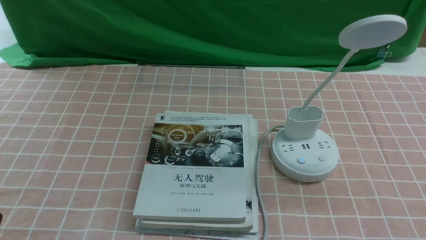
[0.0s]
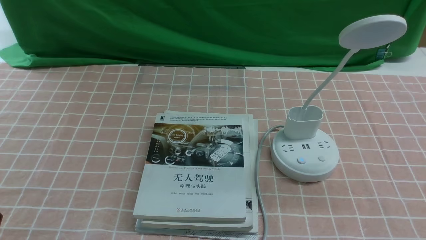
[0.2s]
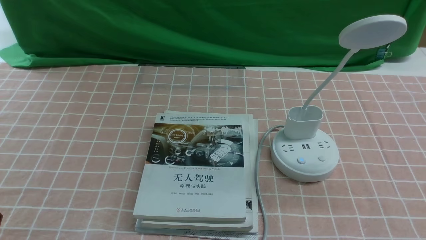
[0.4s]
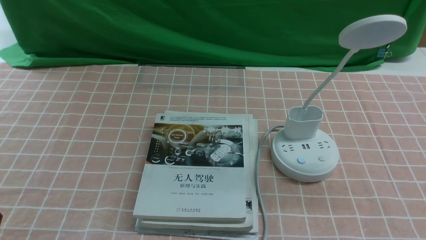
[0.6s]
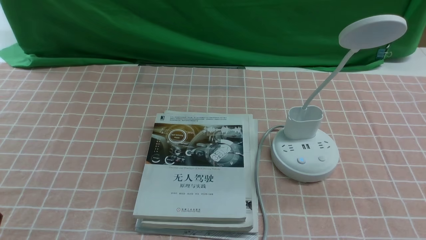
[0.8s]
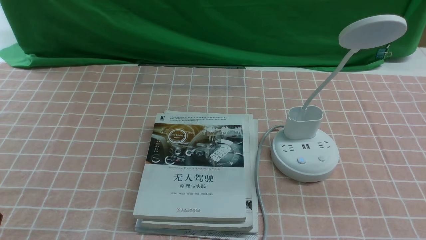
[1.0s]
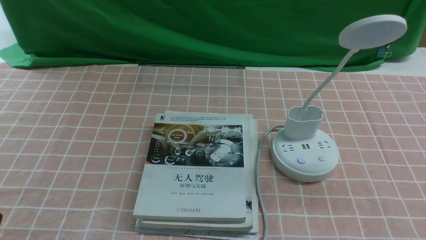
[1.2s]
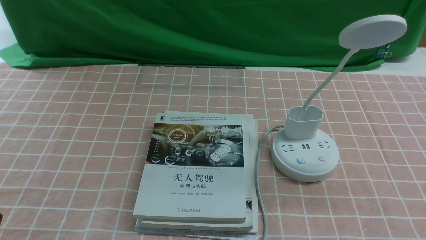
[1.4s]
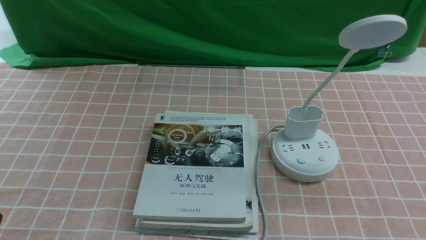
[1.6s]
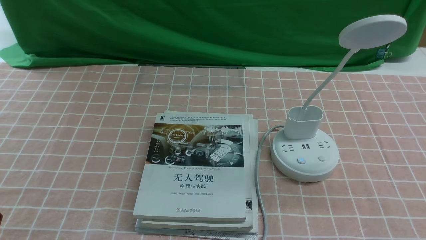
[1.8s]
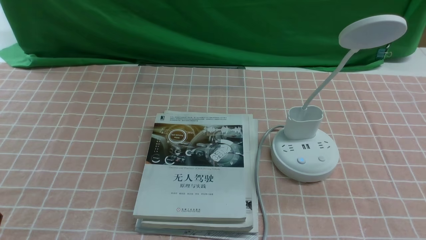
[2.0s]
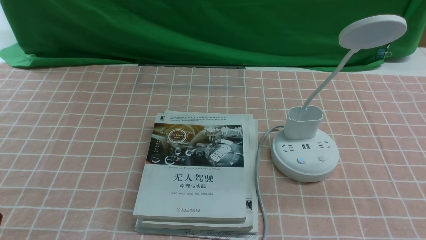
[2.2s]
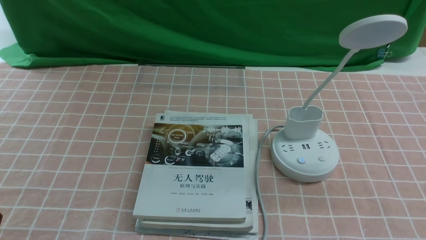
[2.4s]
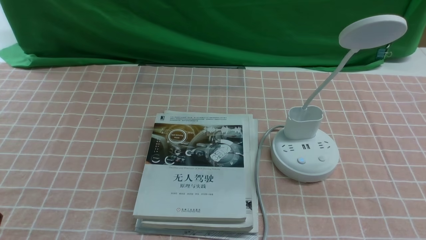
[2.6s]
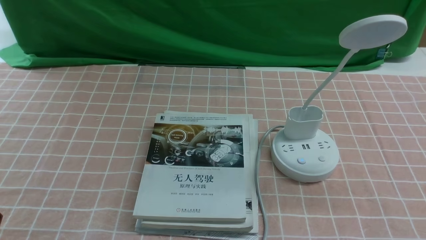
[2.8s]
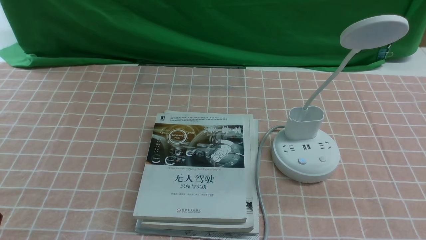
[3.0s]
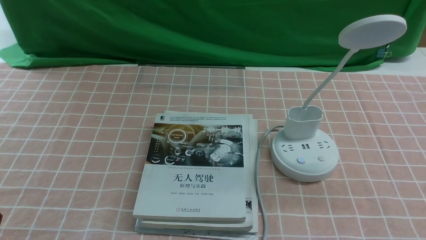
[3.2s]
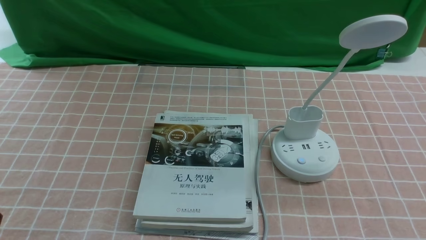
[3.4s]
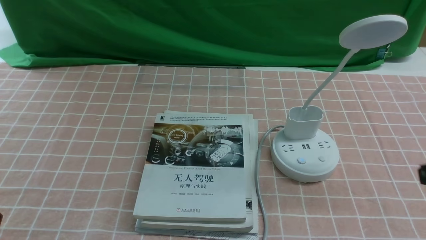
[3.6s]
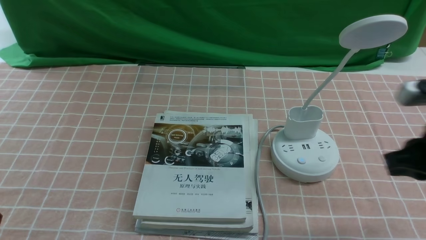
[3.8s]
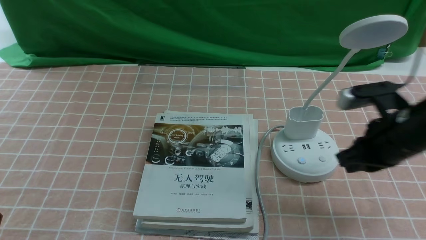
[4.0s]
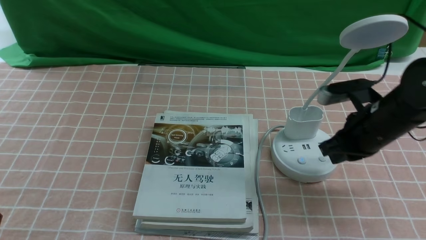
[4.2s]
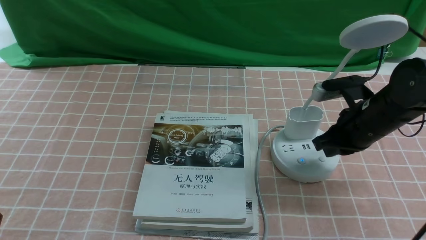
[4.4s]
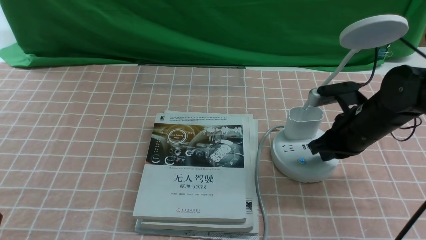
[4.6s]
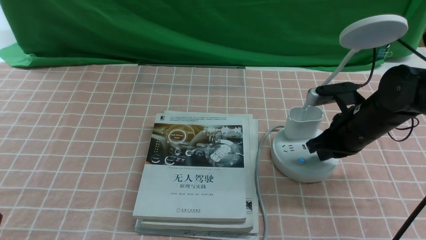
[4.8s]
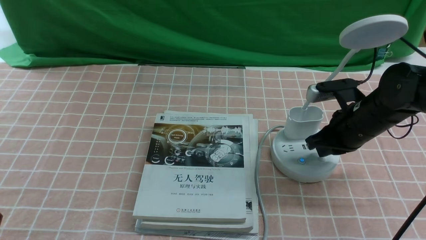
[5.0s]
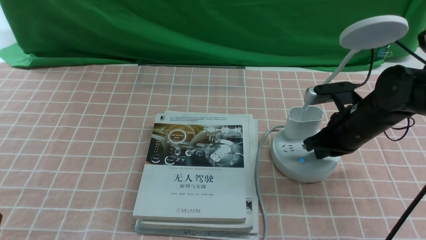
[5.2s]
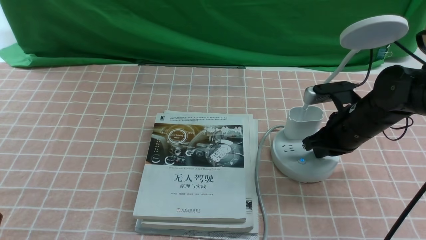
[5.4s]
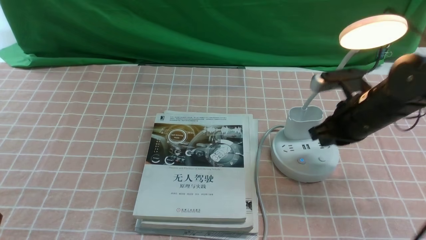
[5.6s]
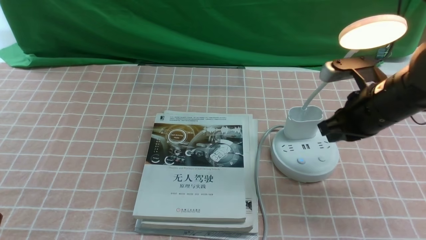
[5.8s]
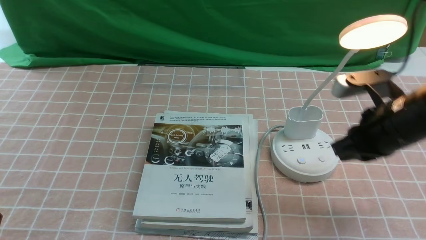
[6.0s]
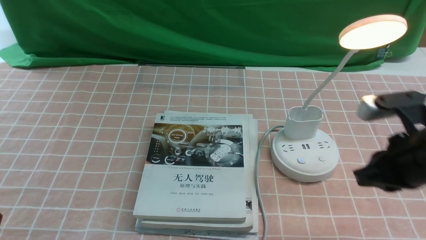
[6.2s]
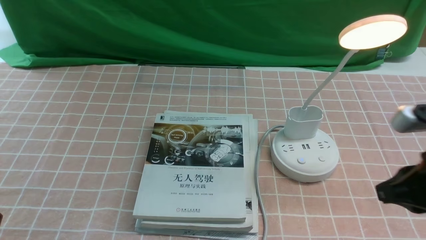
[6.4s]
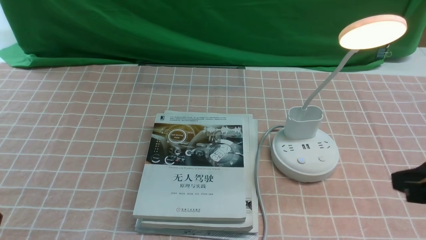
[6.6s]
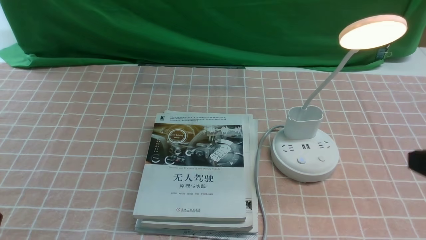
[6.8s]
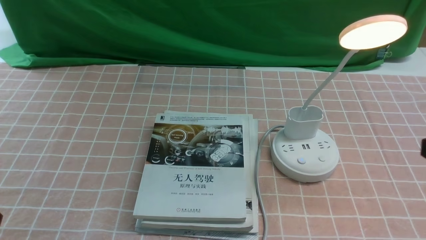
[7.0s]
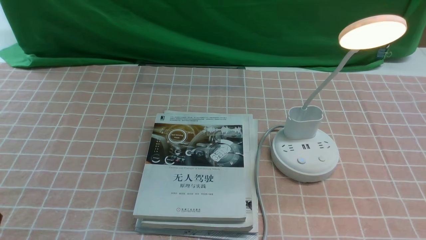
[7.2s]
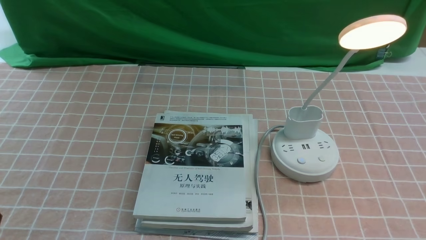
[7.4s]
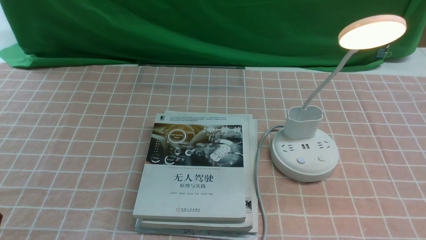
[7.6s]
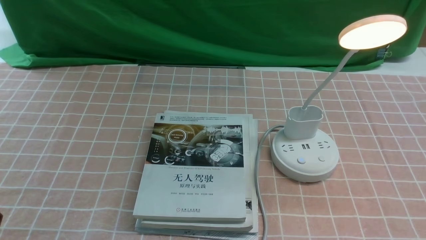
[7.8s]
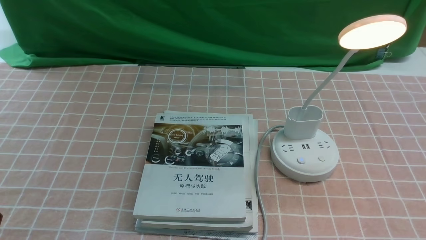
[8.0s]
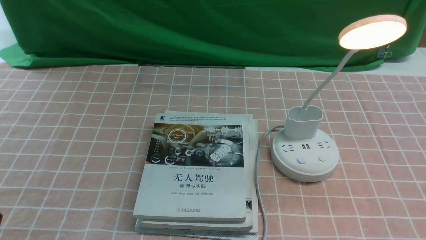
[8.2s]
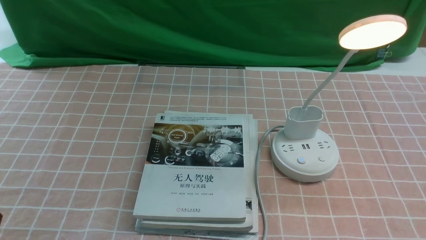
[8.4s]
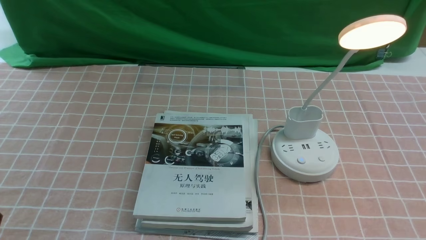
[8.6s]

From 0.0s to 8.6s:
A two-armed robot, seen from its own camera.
Step, from 0.0s to 5.6s: use the right arm to press the button switch on the lamp holder.
From 0.0s to 1.4s: Both grippers stay put.
From 2.8s to 4.4s: The right gripper moves forward, approximately 30 cm, and closes its fingers.
From 4.4s to 5.8s: The grippers stay close to where they were, moving slightly.
From 5.8s to 7.2s: The right gripper shifts approximately 25 cm backward.

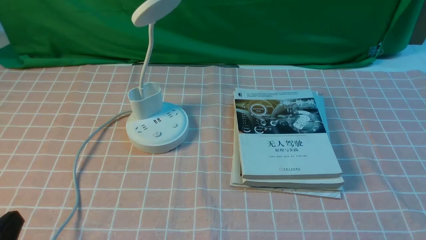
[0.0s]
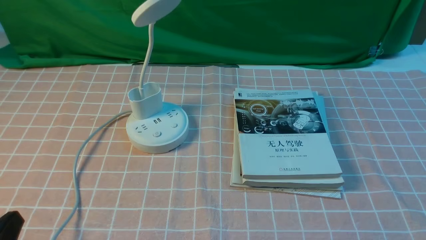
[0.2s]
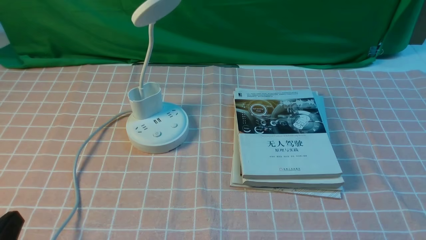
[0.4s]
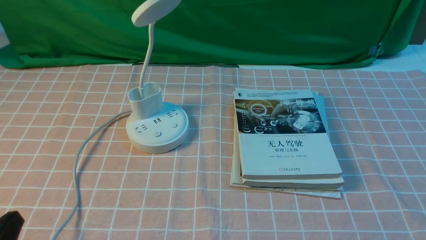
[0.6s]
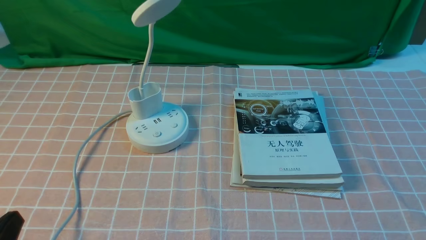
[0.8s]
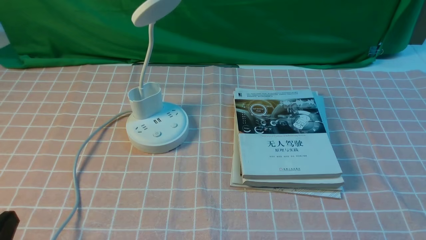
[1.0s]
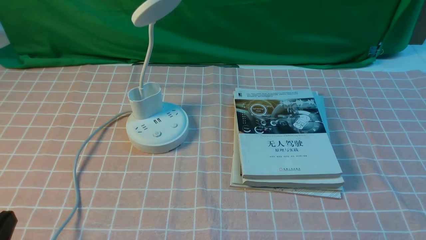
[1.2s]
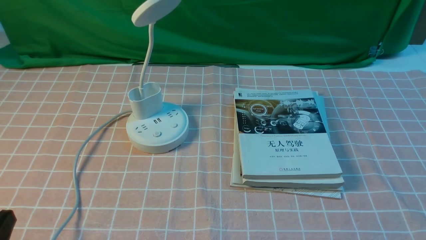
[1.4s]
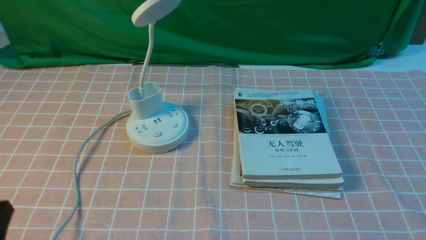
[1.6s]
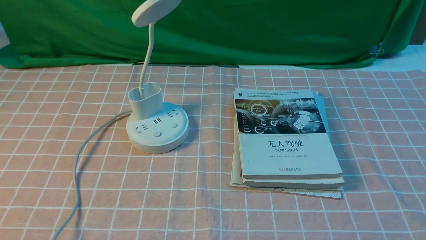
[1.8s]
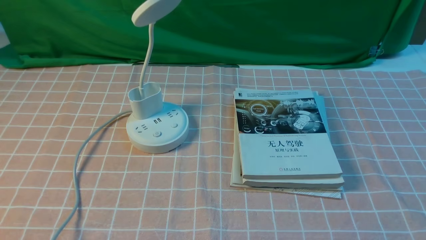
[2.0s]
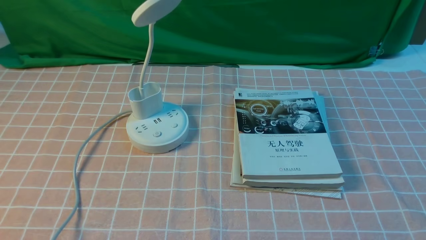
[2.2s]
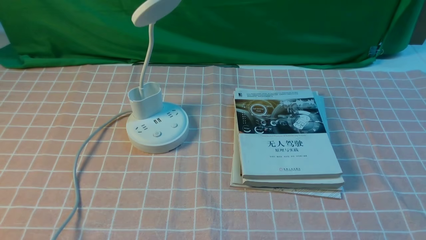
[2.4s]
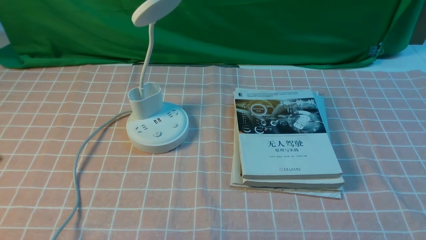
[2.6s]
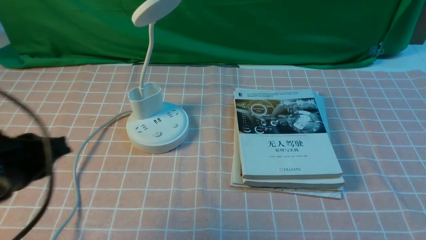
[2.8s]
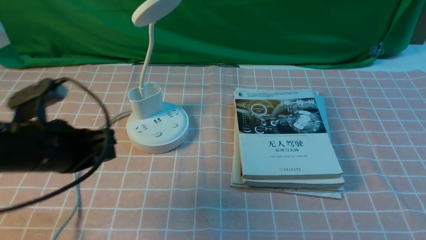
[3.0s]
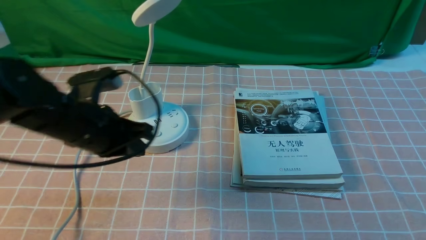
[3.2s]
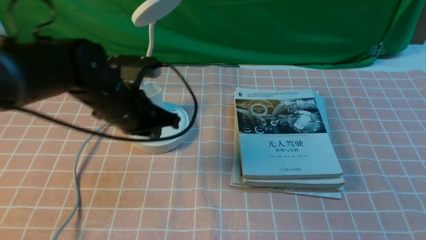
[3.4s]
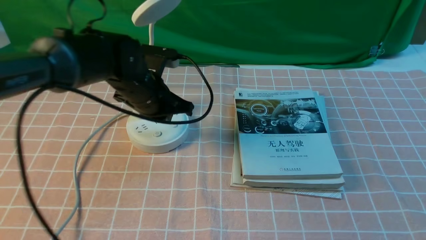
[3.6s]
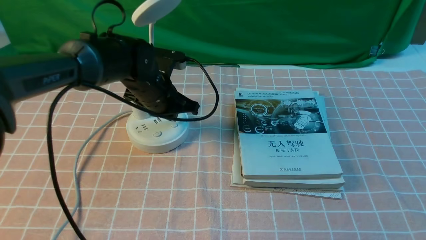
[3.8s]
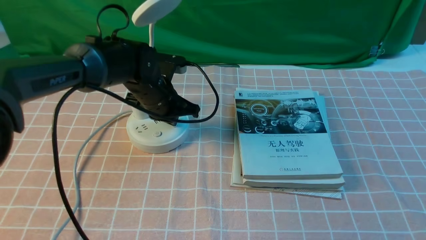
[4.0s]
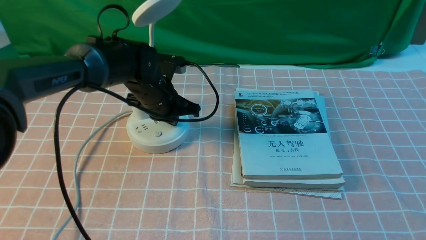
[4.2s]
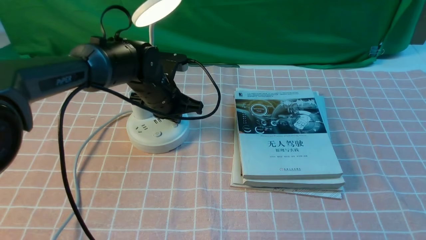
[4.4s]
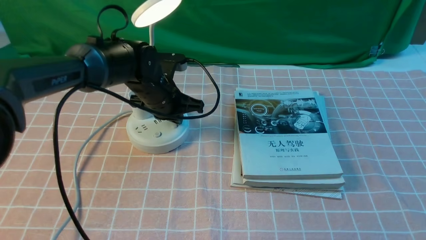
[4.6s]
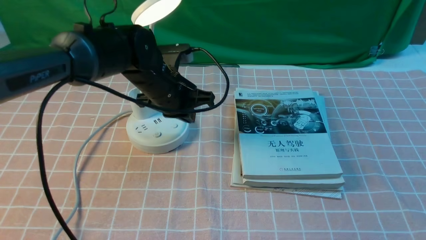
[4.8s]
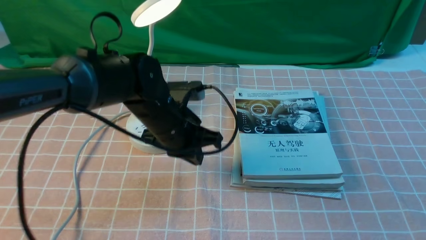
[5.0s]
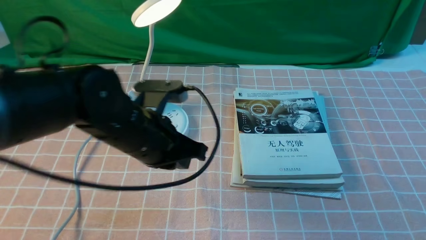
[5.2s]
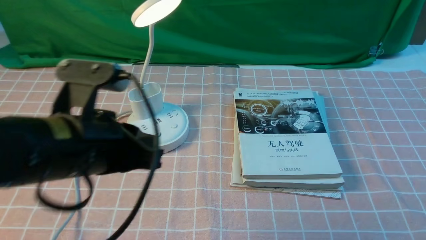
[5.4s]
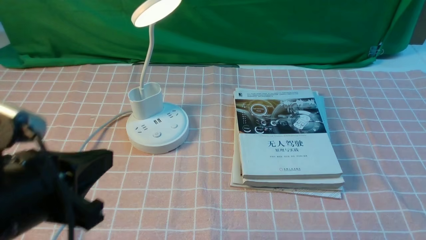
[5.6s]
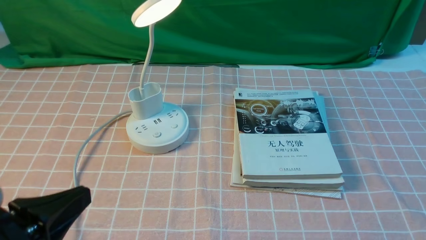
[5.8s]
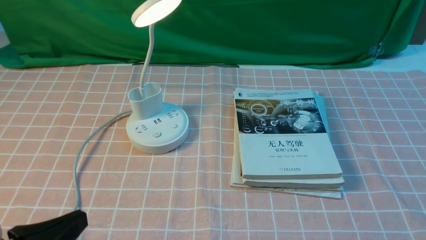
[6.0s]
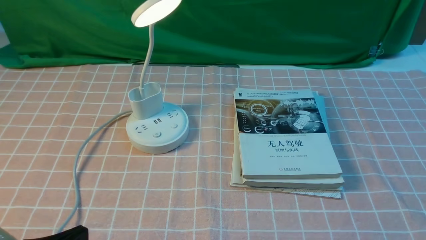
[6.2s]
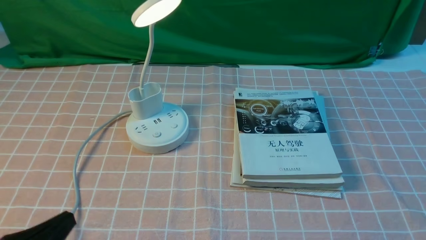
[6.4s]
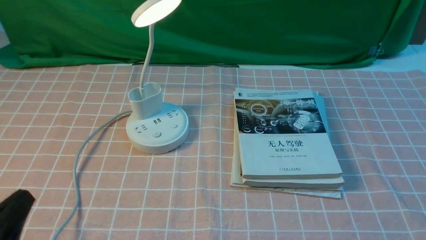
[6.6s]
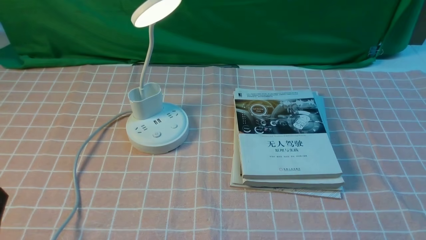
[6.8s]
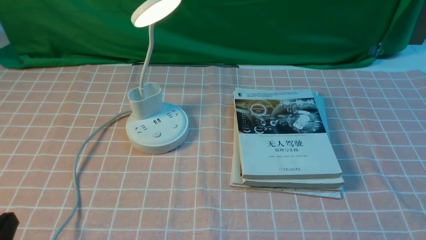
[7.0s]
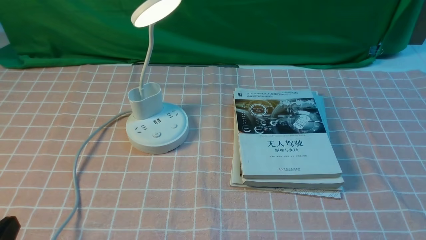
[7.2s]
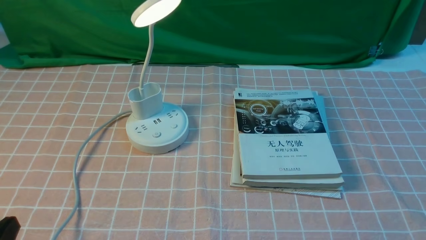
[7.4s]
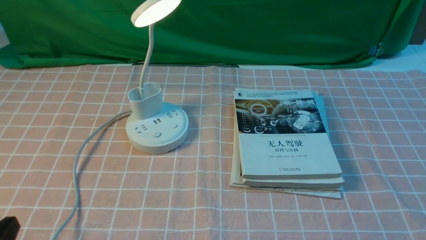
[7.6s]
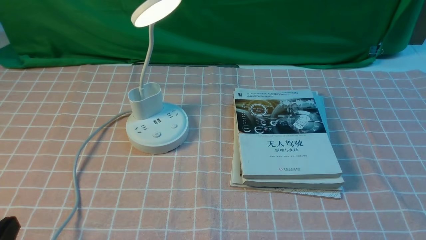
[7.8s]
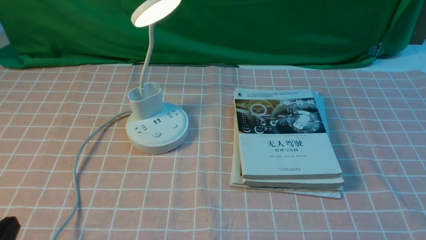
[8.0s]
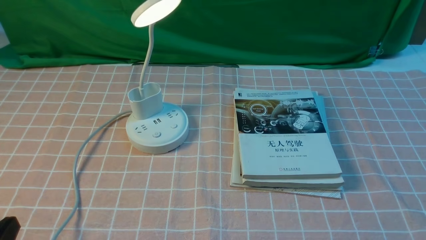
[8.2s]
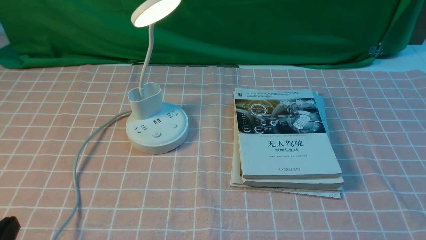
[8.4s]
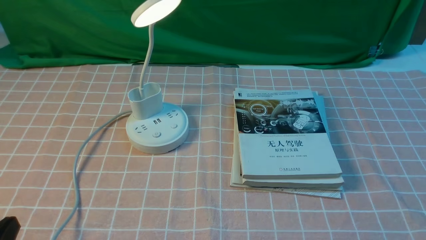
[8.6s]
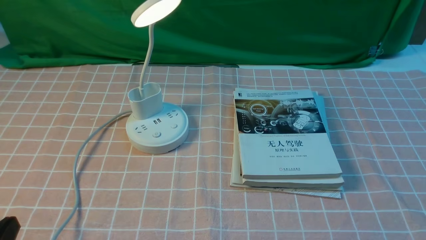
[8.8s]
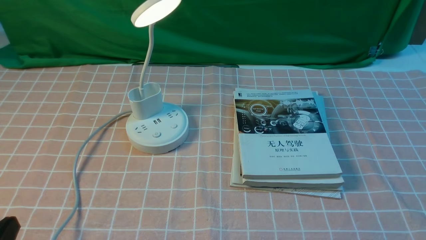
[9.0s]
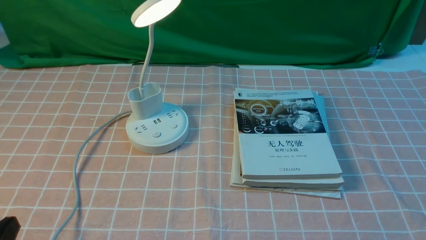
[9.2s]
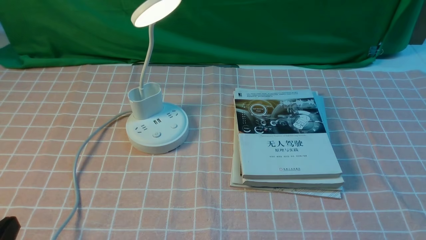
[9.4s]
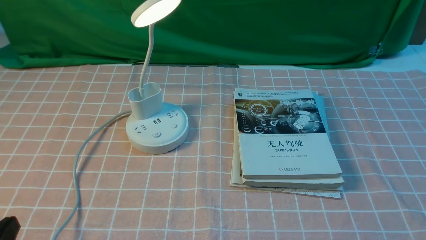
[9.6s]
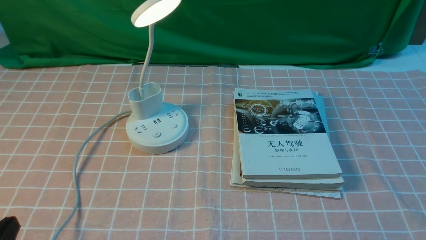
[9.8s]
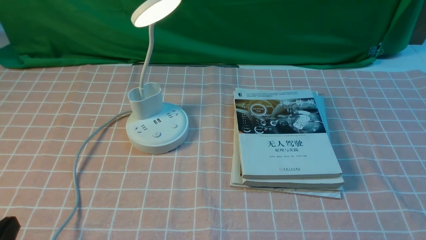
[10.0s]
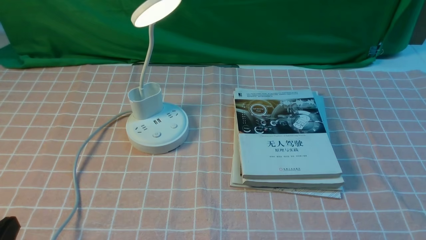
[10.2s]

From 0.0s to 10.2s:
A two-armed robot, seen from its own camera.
Step, from 0.0s to 4.6s: use the left arm to press the button switch on the lamp holder.
From 1.4s to 3.0s: The left gripper travels forward by roughly 20 cm.
From 3.0s to 4.4s: The left gripper shifts about 20 cm forward, to the right and downward.
From 4.4s to 5.8s: The left gripper shifts some 35 cm backward.
From 5.8s to 7.2s: The left gripper travels downward by about 5 cm.
From 7.2s to 10.2s: Both grippers stay about where they are.
